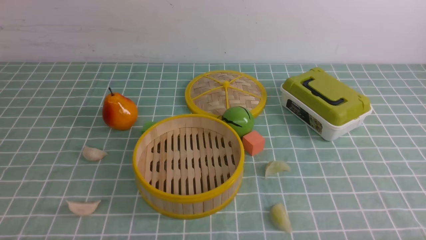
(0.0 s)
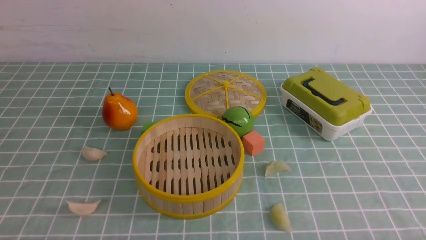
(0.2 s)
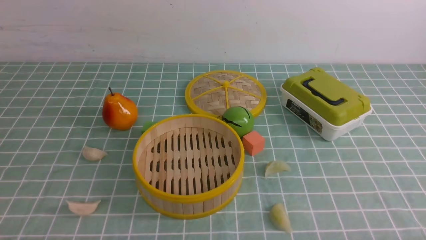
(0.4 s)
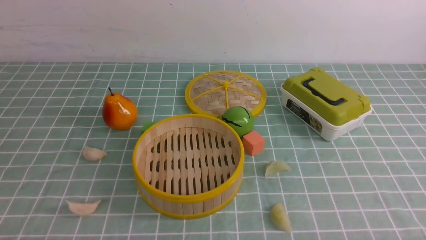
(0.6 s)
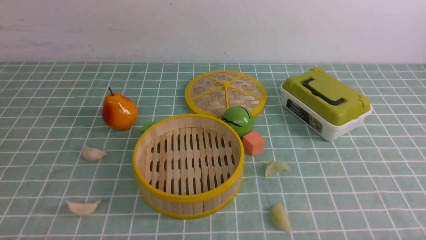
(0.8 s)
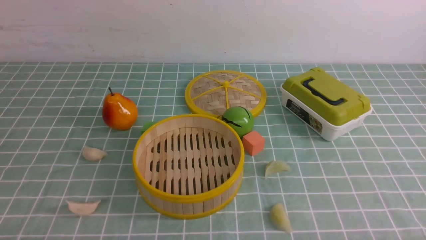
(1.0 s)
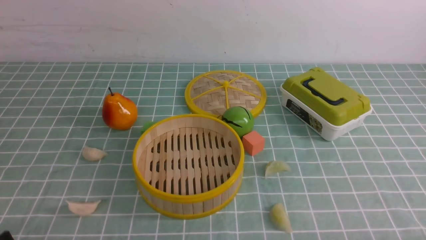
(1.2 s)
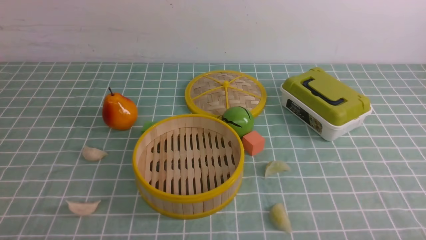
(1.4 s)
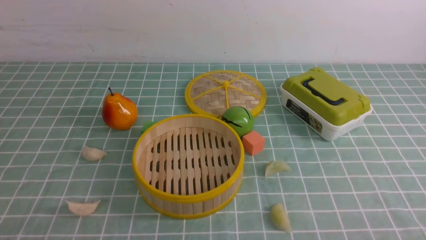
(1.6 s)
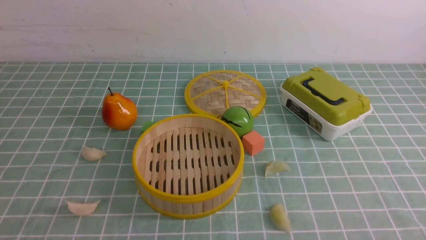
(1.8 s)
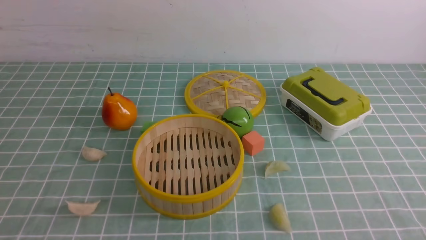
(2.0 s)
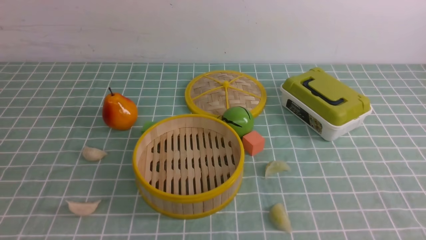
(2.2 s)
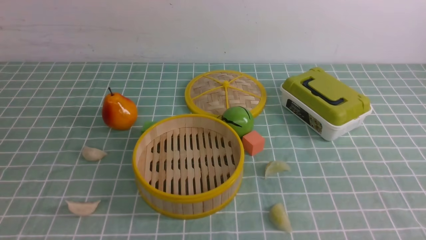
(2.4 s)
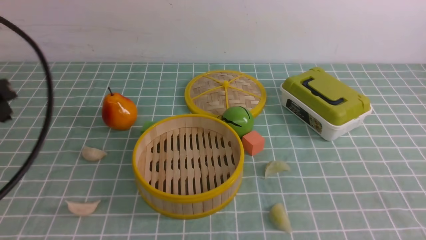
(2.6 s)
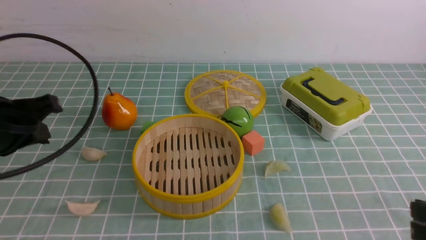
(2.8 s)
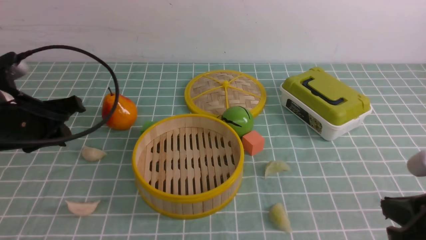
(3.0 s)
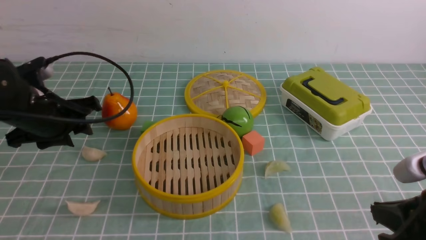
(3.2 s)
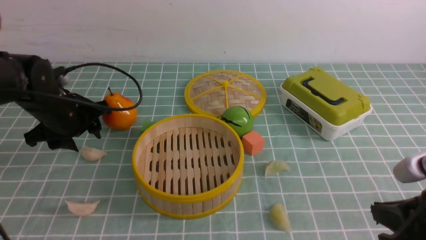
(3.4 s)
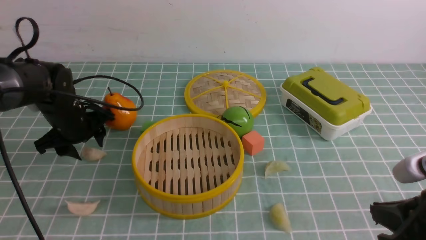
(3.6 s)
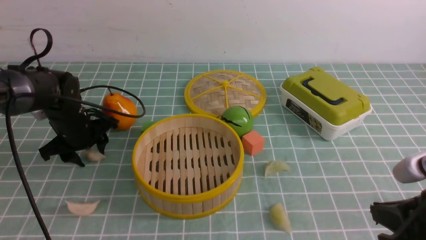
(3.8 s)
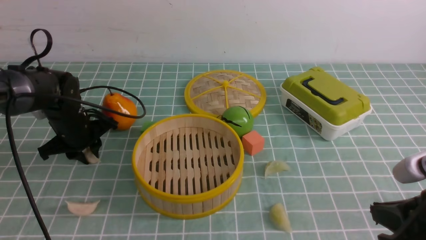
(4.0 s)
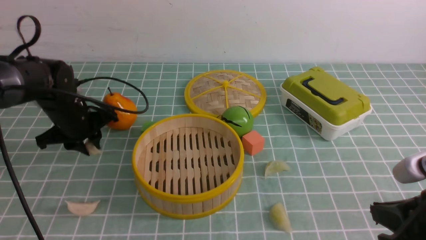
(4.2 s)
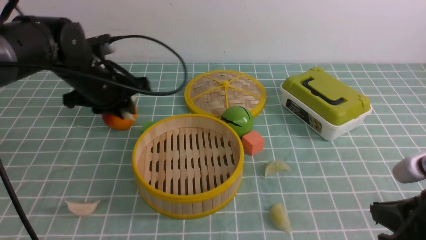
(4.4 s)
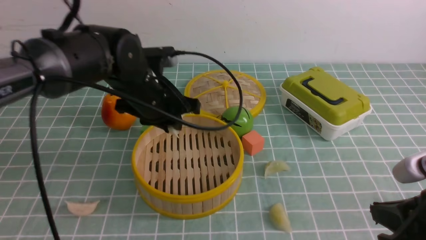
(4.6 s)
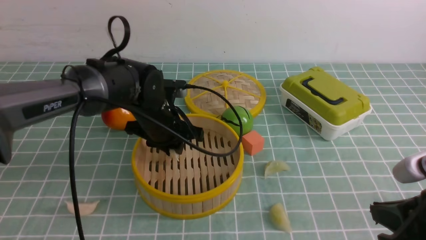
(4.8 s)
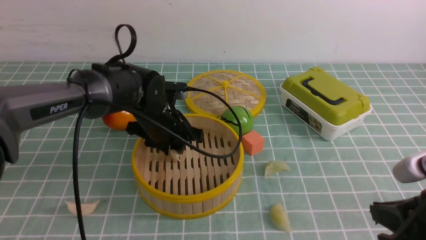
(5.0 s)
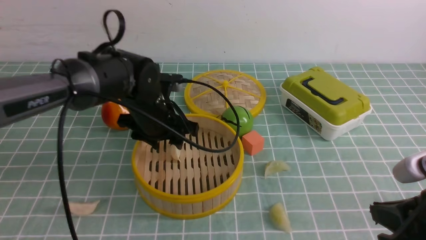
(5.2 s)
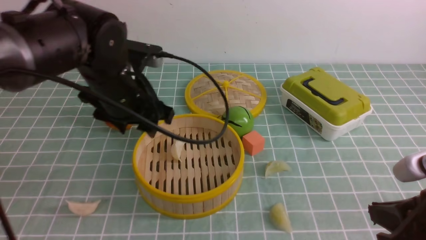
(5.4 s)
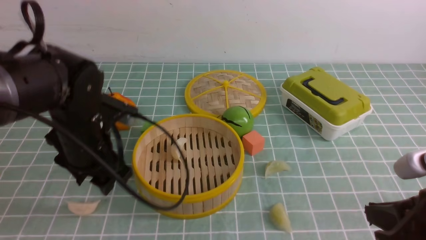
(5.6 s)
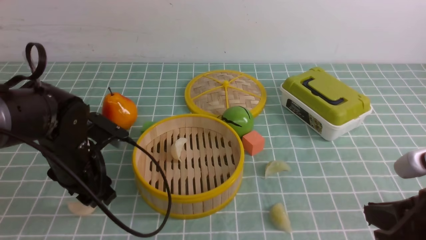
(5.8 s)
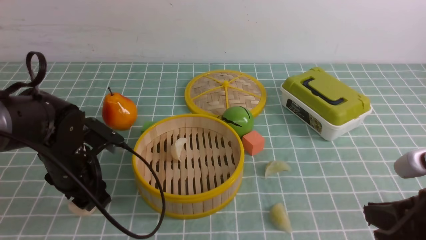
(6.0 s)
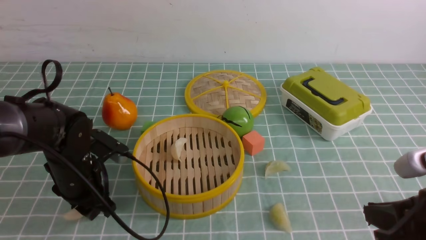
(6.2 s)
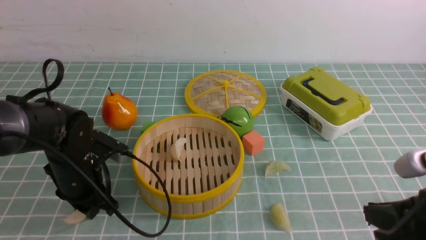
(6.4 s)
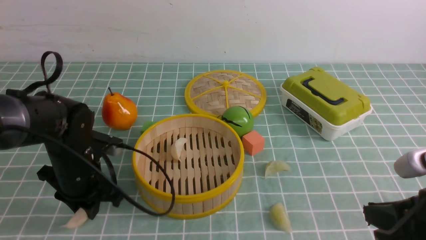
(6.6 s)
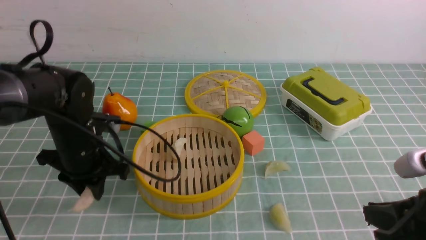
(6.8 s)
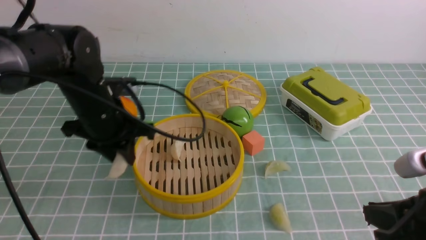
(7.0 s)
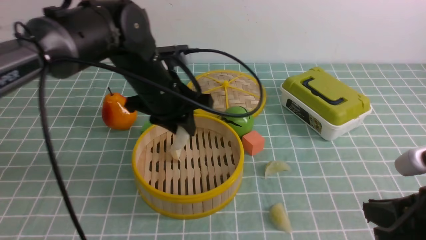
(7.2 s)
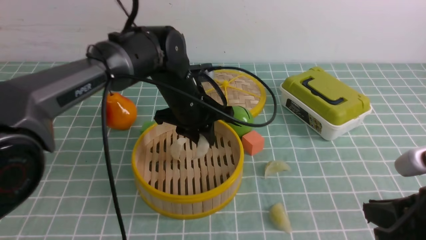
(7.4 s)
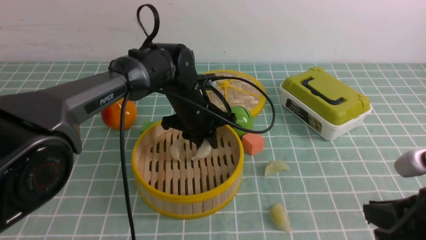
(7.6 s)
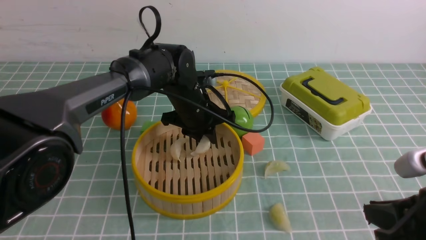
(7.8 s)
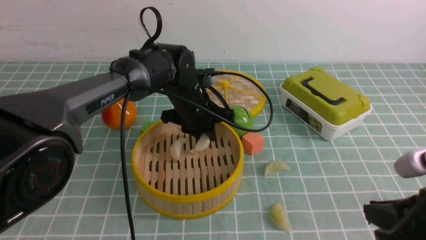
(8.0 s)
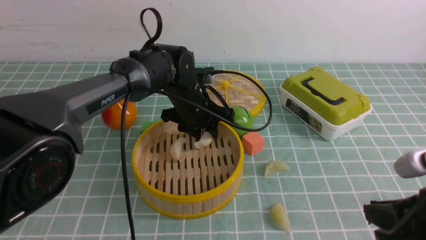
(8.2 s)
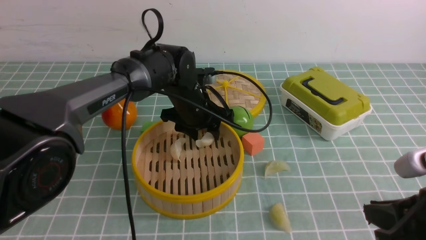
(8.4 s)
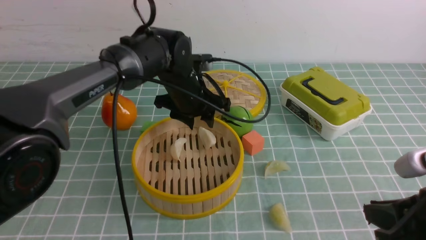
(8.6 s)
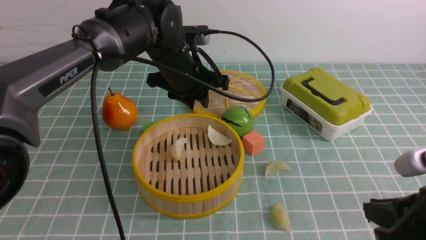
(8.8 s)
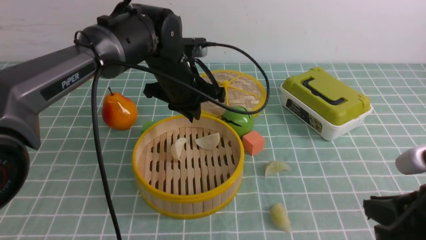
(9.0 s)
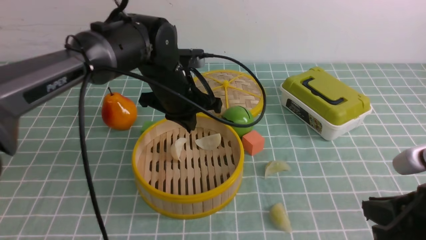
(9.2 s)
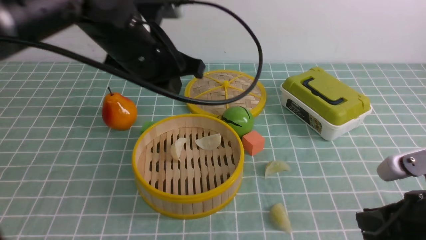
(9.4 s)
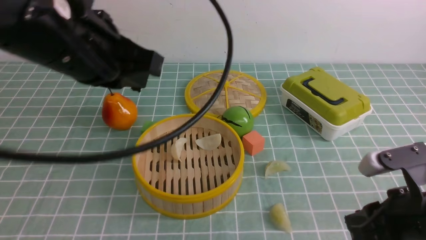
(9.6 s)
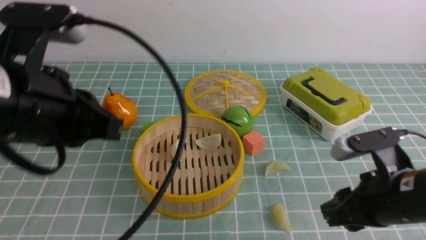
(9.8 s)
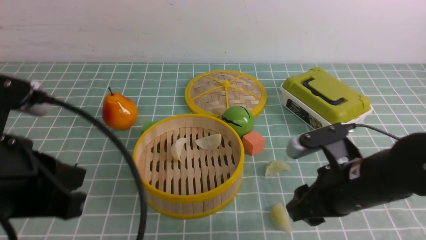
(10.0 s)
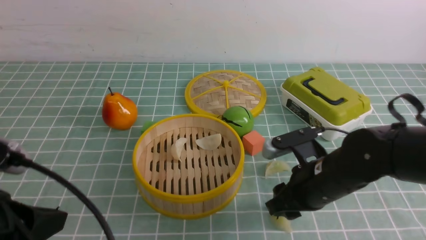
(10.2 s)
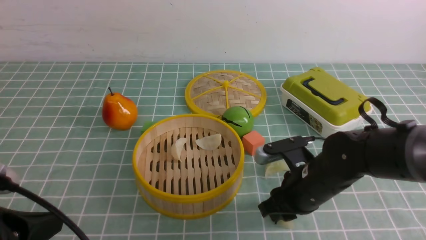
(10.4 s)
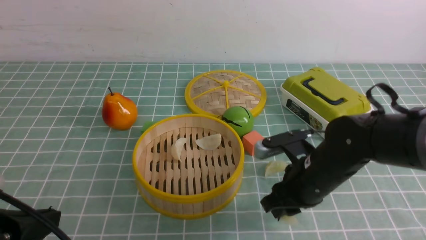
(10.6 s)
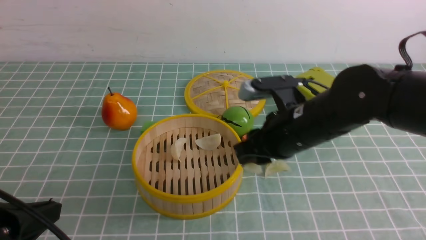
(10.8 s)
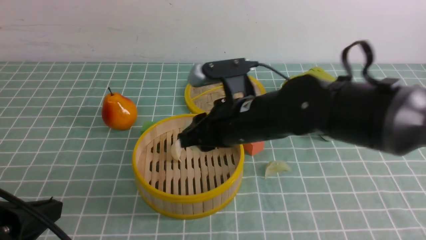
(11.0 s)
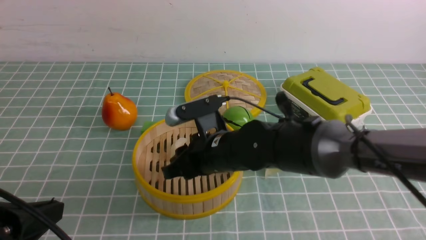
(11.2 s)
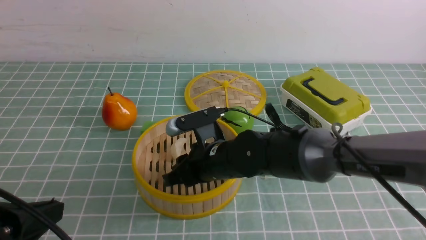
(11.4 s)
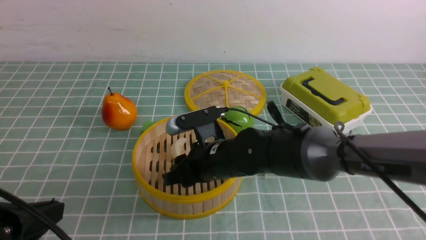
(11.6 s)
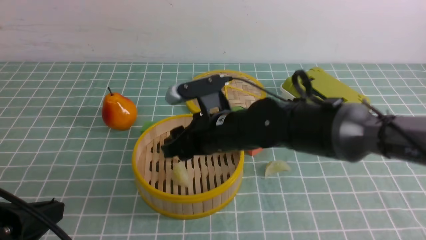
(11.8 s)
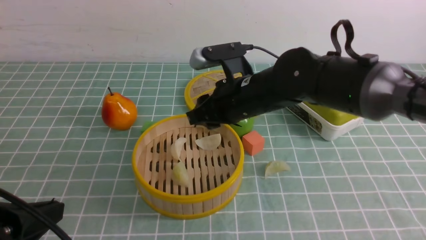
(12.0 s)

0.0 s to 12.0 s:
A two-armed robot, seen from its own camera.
Task of the whole recording: put the dumplings into the steamer on the table with the blue tablecloth.
Step, 0.0 to 4.4 s: use the left arm to grab a dumpling.
Step, 4.6 to 5.4 s: use the left arm to put the dumpling into the steamer.
Step, 5.6 to 6.6 s: use the left arm to grab a dumpling.
Step, 6.8 to 8.8 s: use the left arm to put the dumpling into the steamer.
Step, 9.0 to 10.8 s: use the right arm to grab a dumpling.
Step, 11.0 to 12.0 s: use the right arm to put the dumpling into the steamer.
1.6 to 3.0 s: The right gripper shifts roughly 10 cm forward. Meanwhile the left gripper shifts approximately 25 cm forward, and closes and opens again.
3.0 to 4.4 s: The left gripper is displaced forward and to the right by about 15 cm, and opens, then closes once more.
4.4 to 6.0 s: The left gripper shifts some 10 cm backward and downward, and opens up.
6.0 to 7.6 s: The left gripper goes some 20 cm to the right and forward, and closes up.
7.6 to 9.0 s: The left gripper shifts about 5 cm upward, and opens, then closes once more.
9.0 to 10.4 s: The right gripper moves forward, to the left and downward, some 20 cm, and opens its fingers, while the left gripper moves backward and to the left, about 35 cm.
10.4 to 12.0 s: The right gripper is displaced to the left, upward and forward by roughly 15 cm.

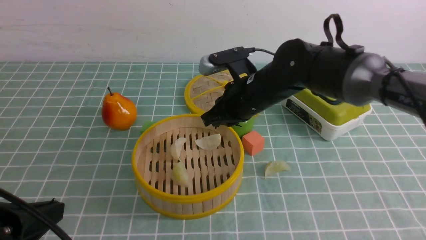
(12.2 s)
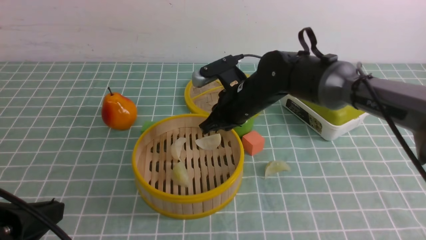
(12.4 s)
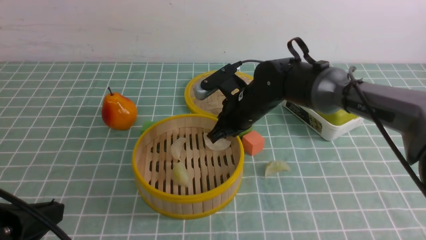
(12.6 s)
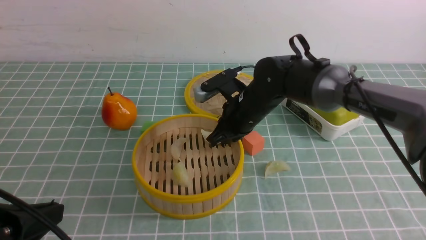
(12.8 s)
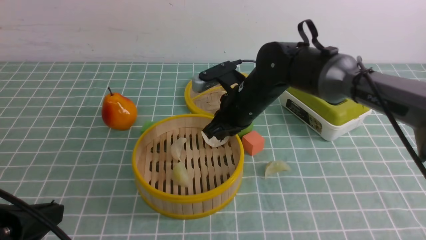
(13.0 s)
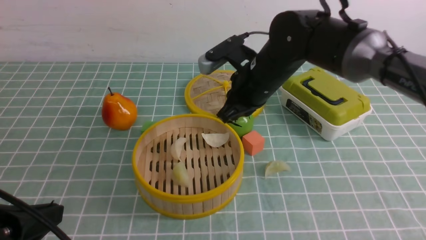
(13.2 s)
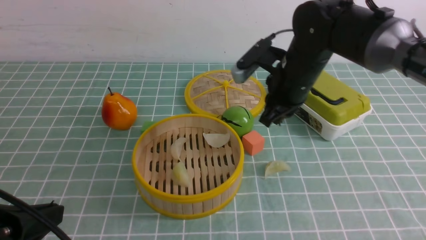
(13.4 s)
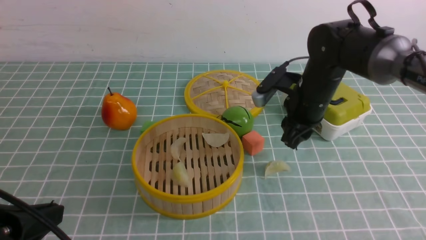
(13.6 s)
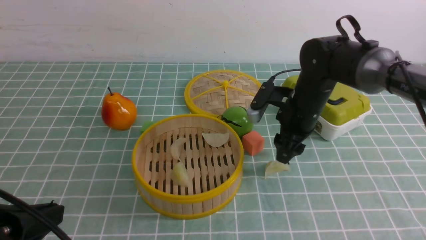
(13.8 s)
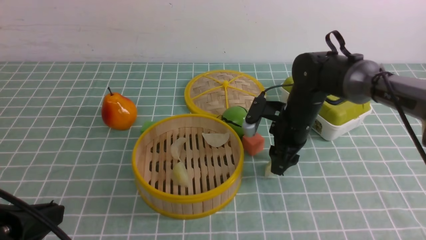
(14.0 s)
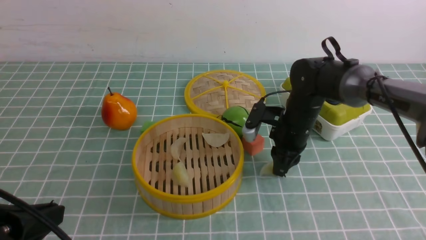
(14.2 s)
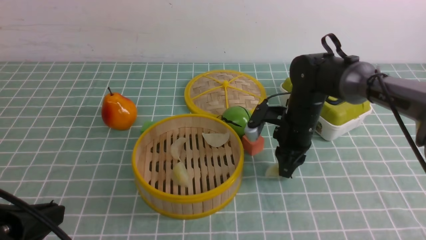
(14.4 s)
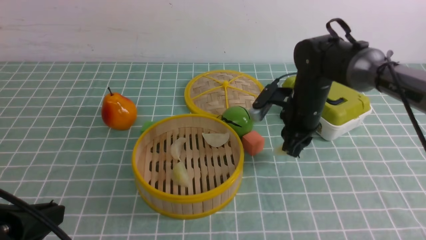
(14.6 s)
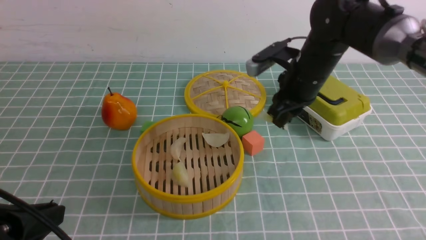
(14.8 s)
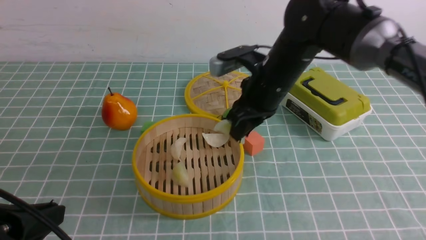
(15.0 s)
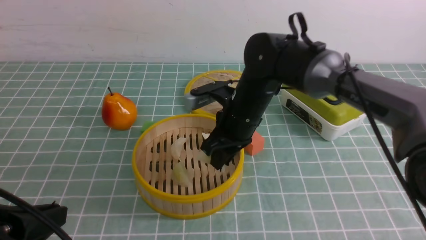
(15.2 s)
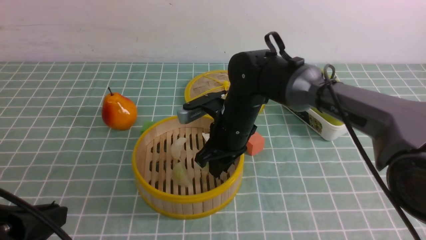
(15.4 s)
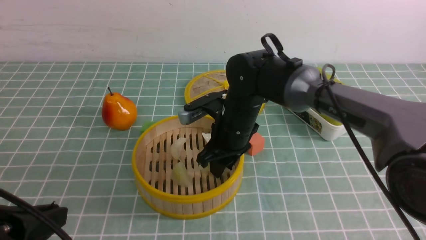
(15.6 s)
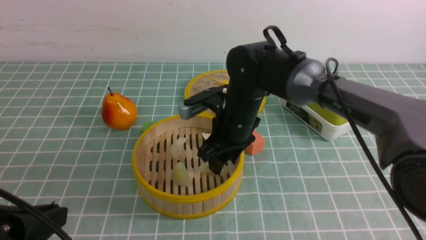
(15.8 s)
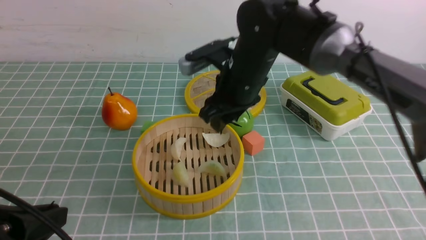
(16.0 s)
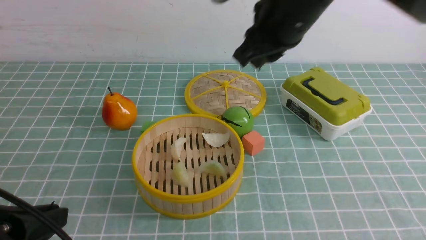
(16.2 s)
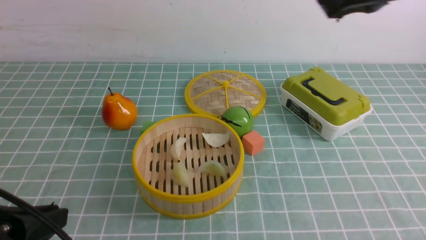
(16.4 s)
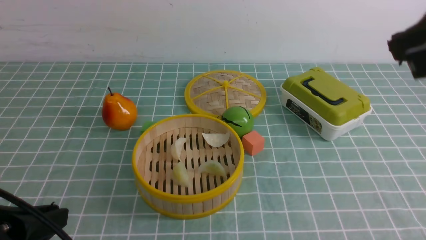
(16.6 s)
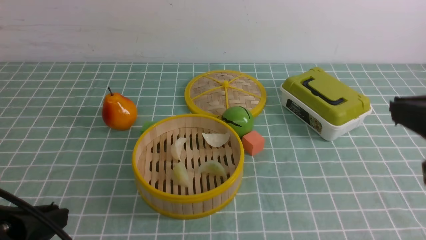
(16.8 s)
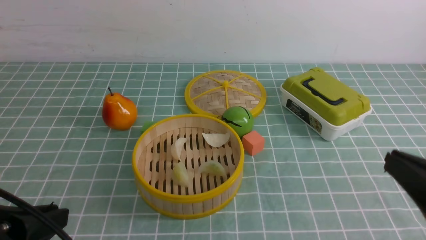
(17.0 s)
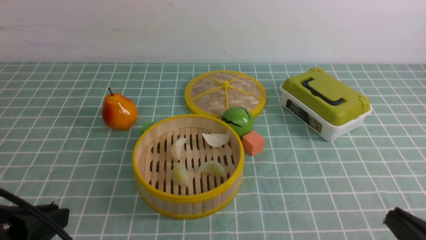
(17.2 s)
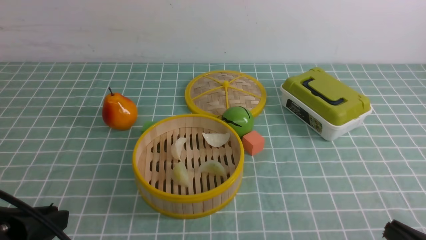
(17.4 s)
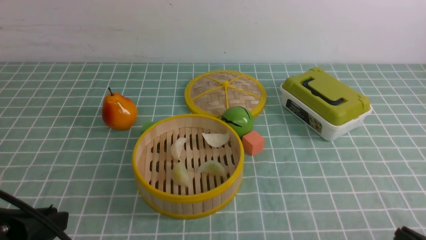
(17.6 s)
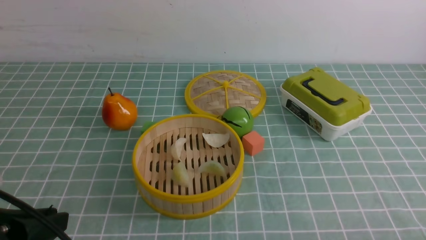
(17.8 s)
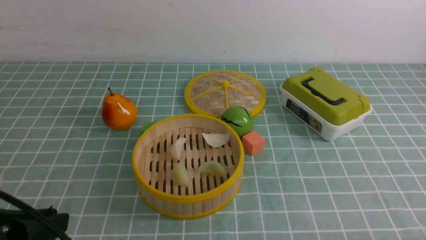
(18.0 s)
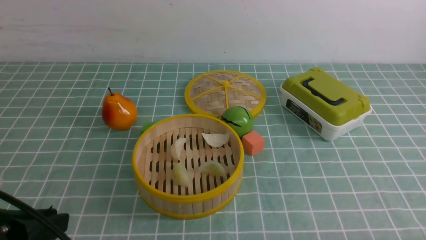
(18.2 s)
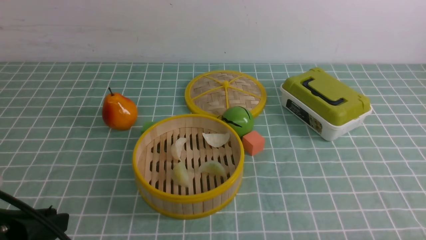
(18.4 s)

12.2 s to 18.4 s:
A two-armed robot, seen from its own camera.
Task of the whole recording: put the dumplings into the steamer on the table with the blue tablecloth.
Step, 12.2 to 14.6 s: use the right arm to grab a dumpling.
Step, 14.8 to 16.0 s: use the right arm to put the dumpling into the steamer.
12.2 to 13.8 s: The right gripper heads to the right, covering some 10 cm, and opens up.
13.8 to 15.4 s: The right gripper travels to the left by about 10 cm, and closes.
15.4 to 16.8 s: The right gripper heads backward, to the right and upward, covering roughly 35 cm, and closes.
16.8 to 18.4 s: The right gripper is displaced downward by roughly 20 cm.
